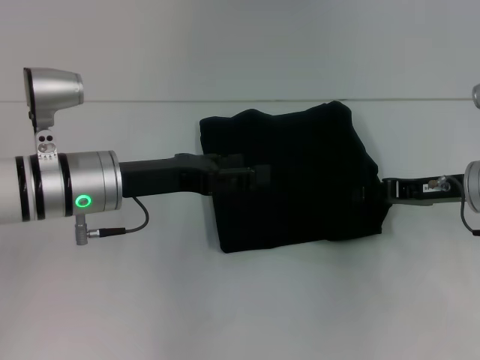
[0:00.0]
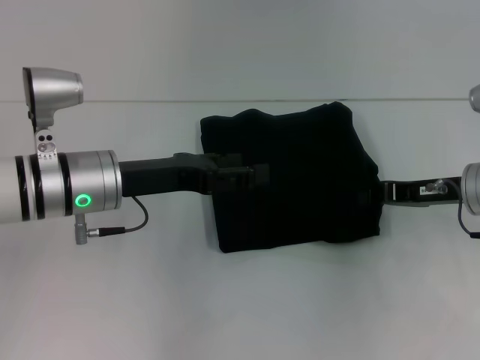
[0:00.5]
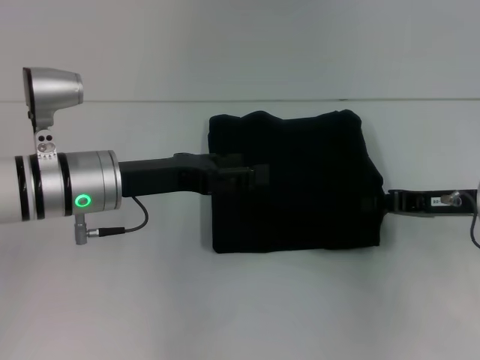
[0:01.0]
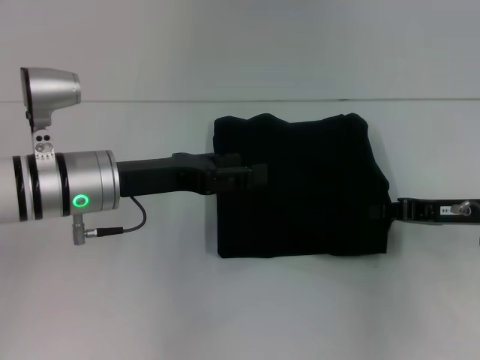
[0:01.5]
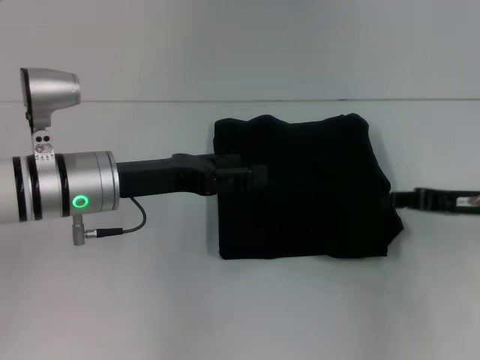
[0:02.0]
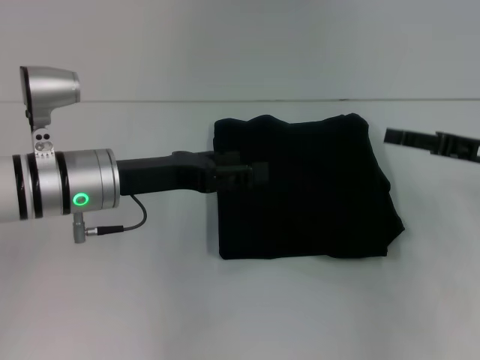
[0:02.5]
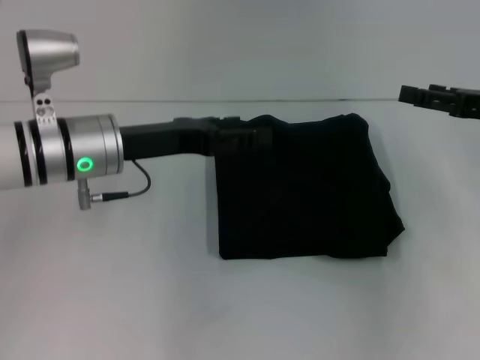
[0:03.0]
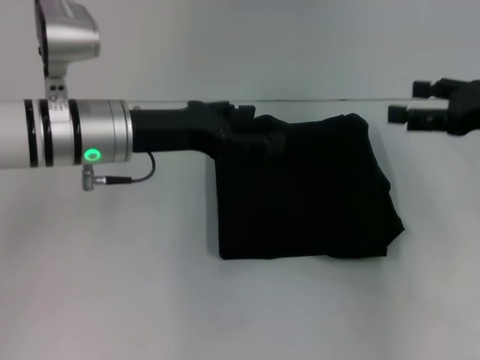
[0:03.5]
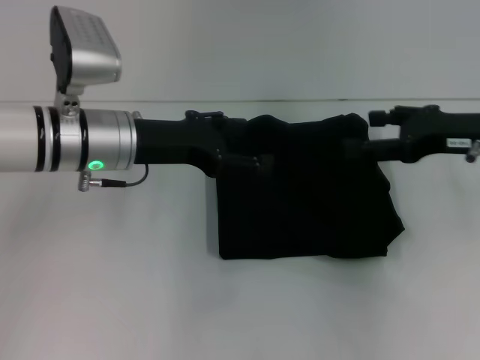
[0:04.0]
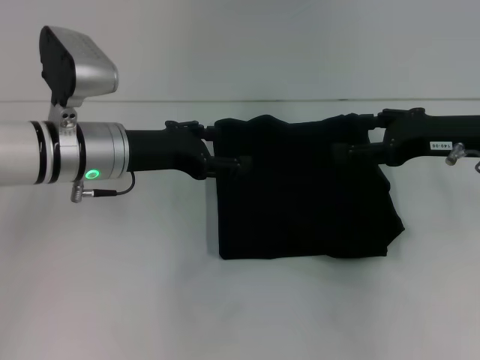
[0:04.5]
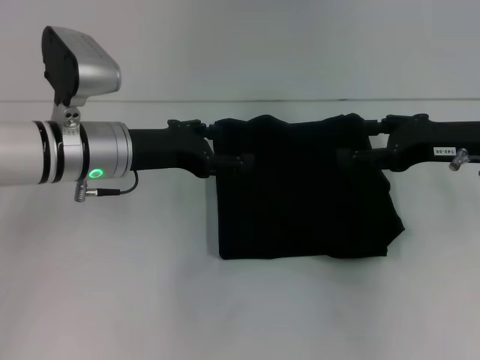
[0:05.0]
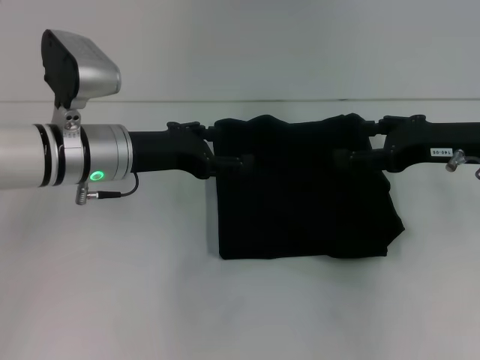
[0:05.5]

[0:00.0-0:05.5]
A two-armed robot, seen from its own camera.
0:00.0 to 0:02.0: The right gripper closes up.
0:02.0 to 0:03.5: The right gripper travels upward by about 10 cm, and opens its fingers. Meanwhile the left gripper ends up about 5 cm from where it was.
0:03.5 to 0:05.5: The right gripper travels to the left by about 5 cm.
